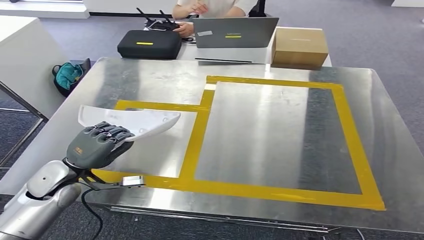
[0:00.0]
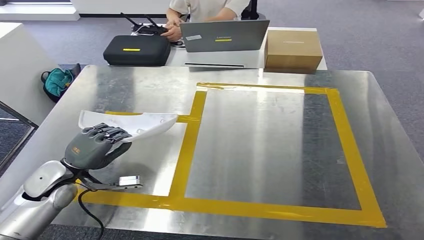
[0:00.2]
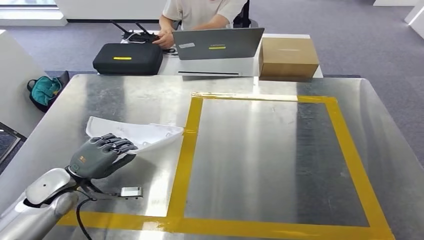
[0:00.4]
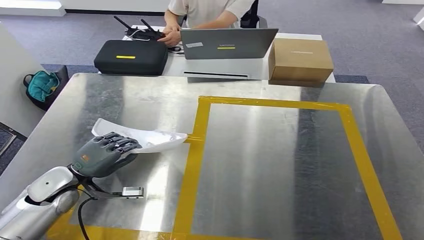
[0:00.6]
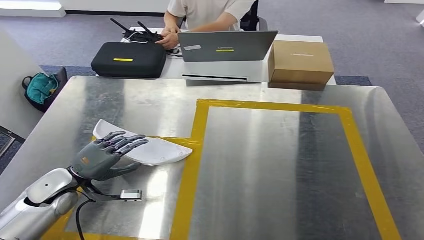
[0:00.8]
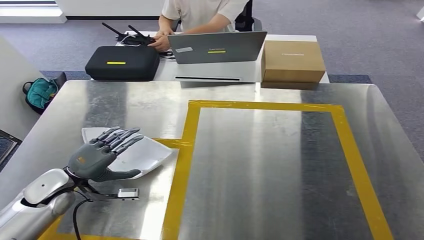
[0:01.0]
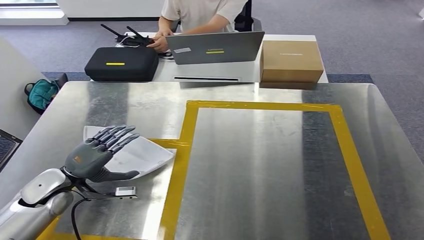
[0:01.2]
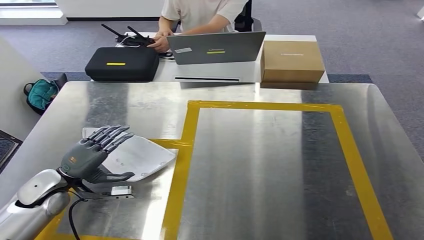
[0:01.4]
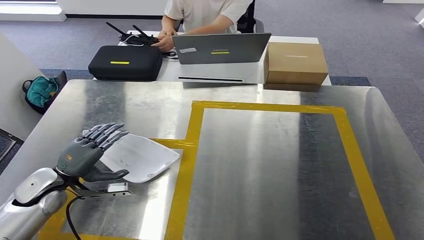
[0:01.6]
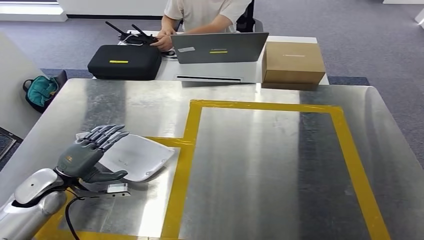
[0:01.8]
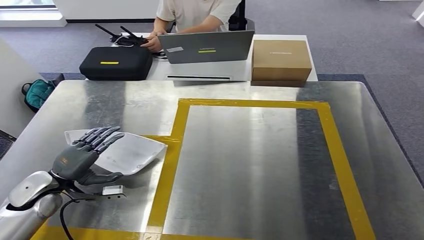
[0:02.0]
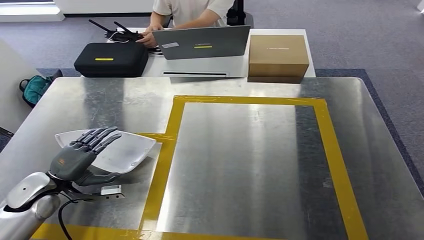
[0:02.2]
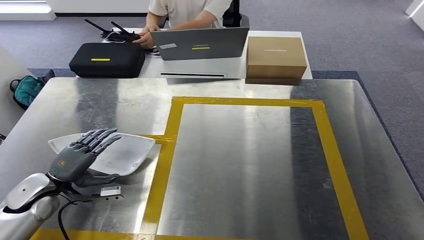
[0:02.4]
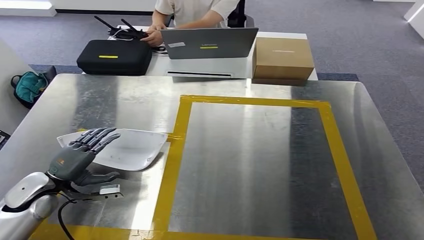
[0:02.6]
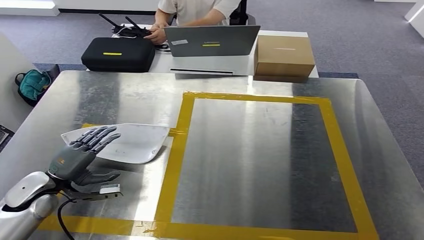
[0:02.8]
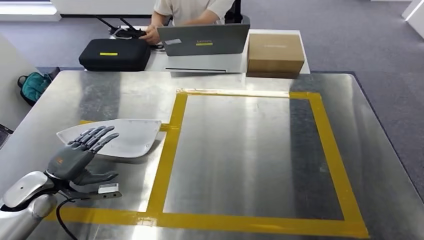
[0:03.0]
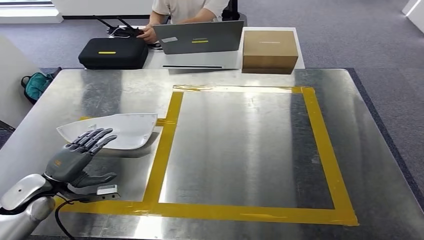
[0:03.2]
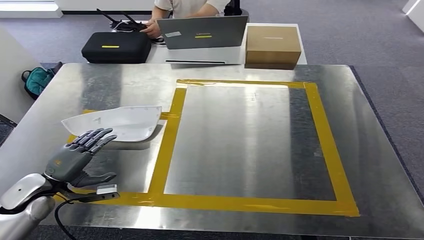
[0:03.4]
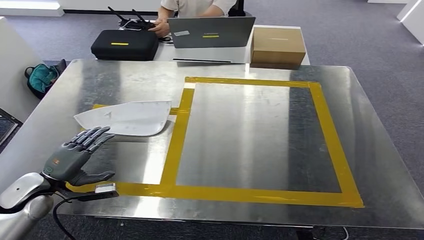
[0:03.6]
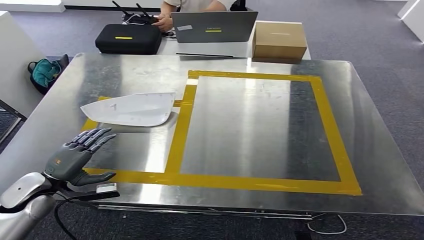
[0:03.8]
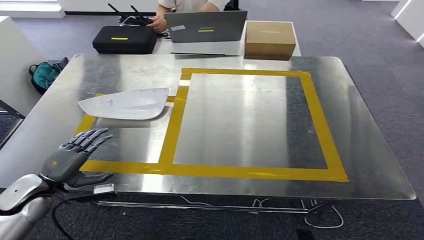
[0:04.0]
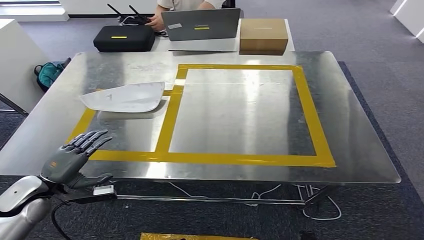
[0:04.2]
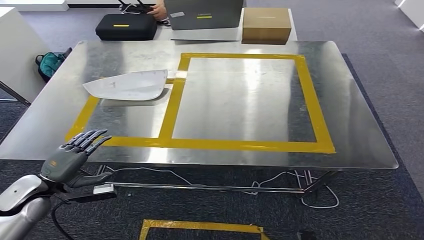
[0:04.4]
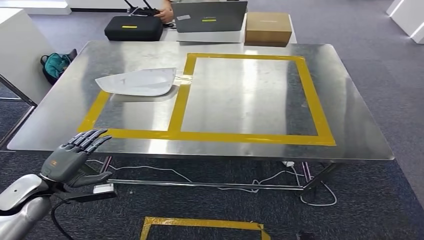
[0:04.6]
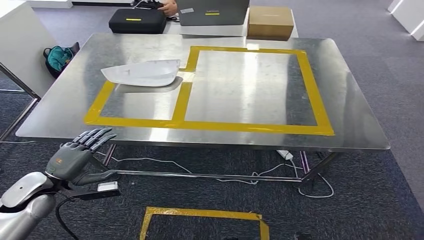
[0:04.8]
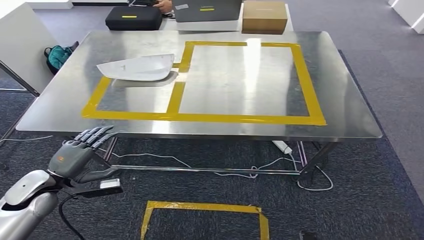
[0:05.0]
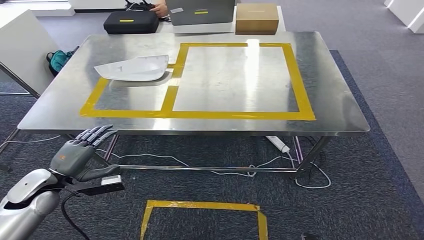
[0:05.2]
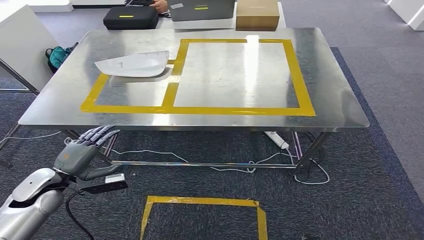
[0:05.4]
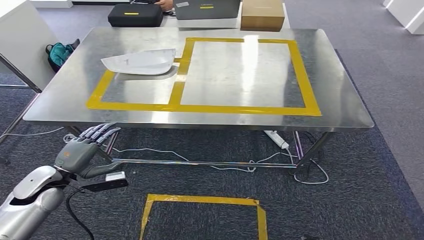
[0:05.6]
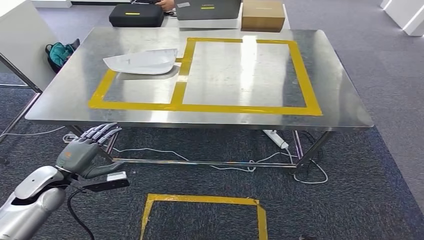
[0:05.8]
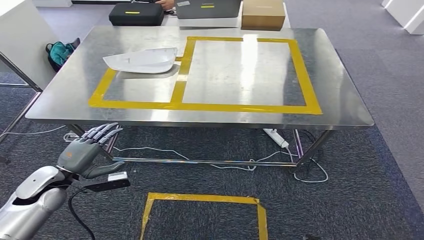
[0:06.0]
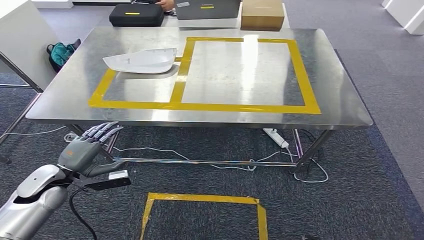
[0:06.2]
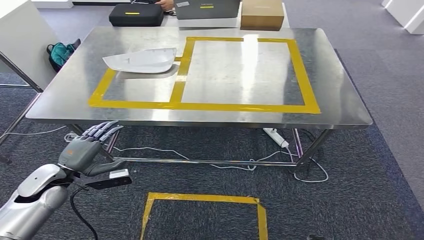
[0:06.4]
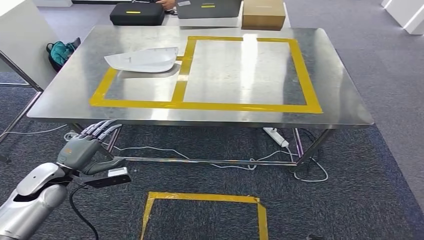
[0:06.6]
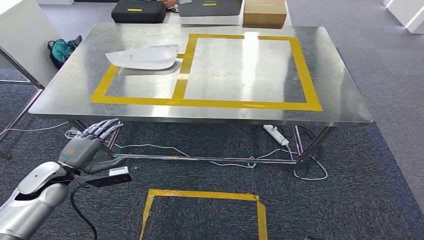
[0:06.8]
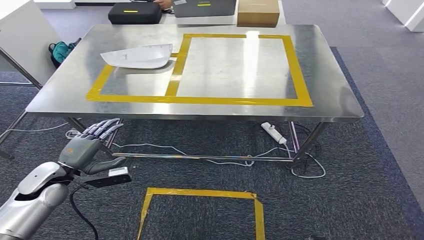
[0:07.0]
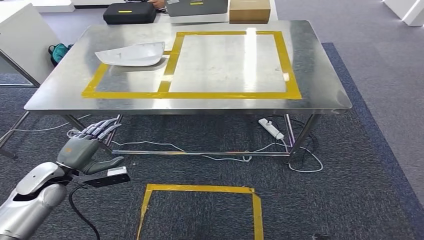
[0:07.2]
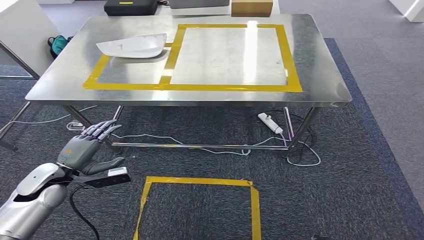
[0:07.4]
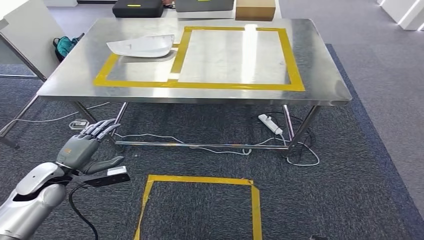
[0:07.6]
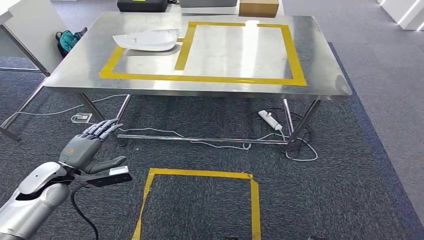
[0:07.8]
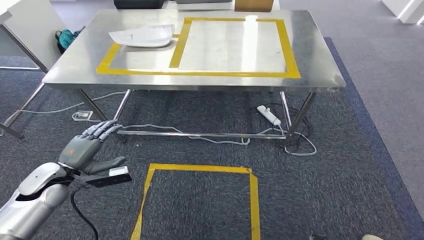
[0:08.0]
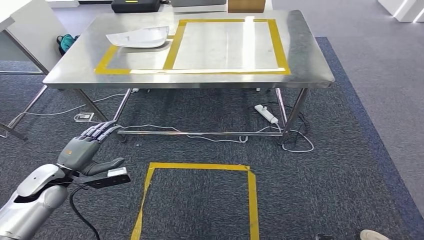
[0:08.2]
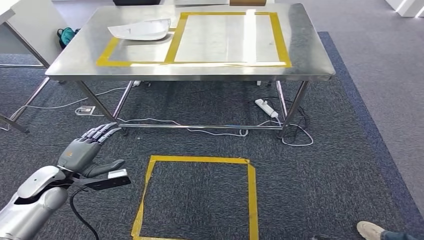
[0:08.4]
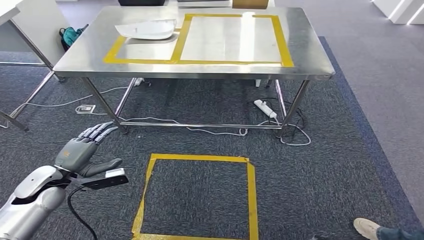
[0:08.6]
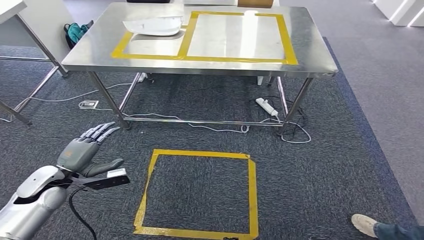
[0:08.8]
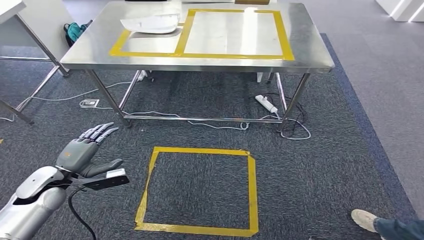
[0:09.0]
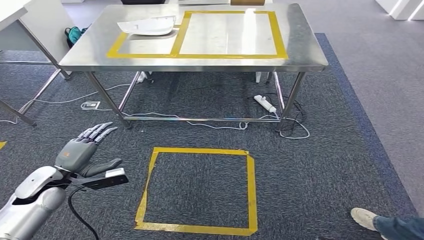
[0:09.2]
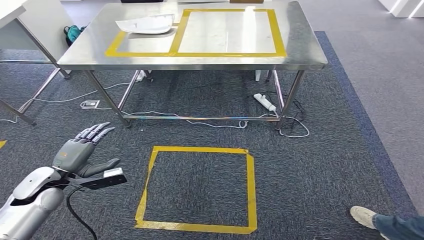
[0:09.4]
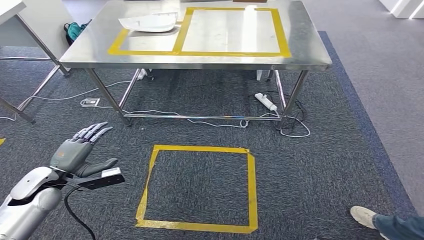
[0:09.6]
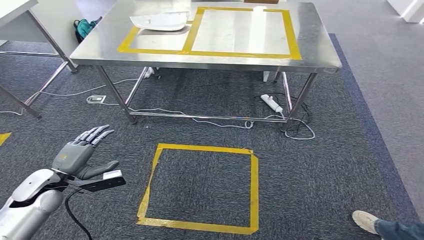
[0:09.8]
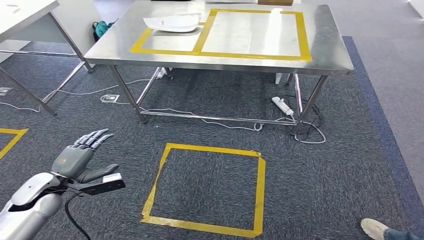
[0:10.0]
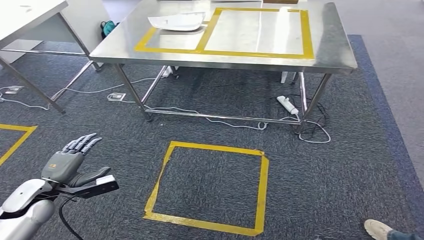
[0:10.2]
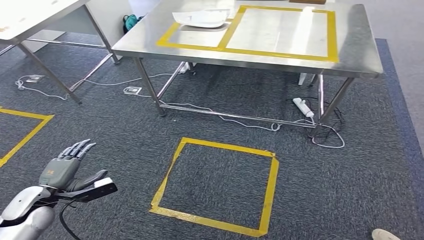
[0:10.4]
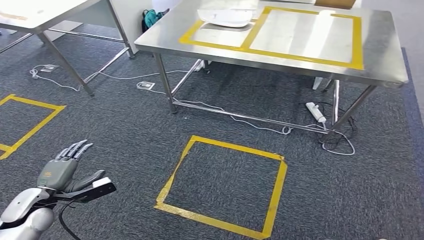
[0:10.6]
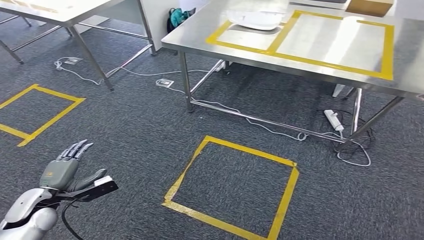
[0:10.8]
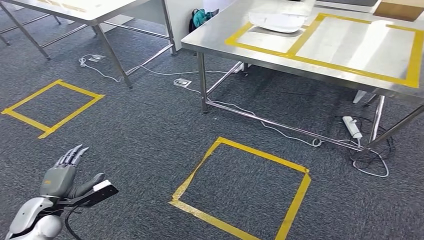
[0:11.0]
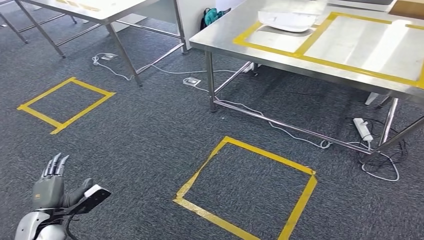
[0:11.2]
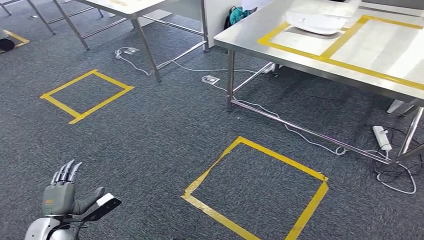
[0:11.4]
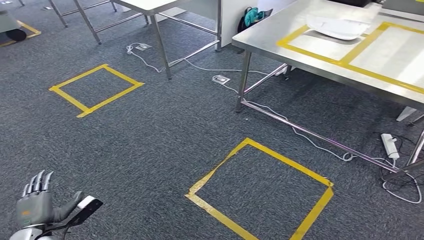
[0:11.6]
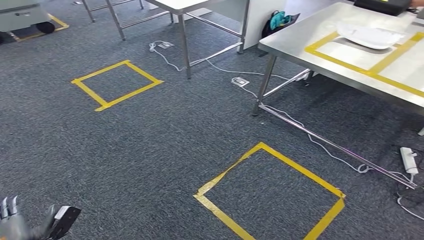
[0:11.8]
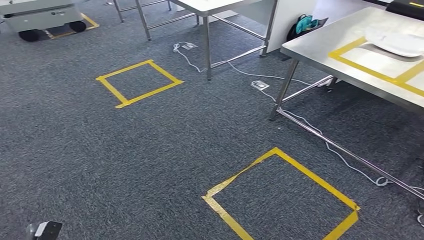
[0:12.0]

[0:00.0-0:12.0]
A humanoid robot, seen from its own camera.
Step, 0:00.0 to 0:06.0: Insert the small component into the corresponding slot on the workbench.

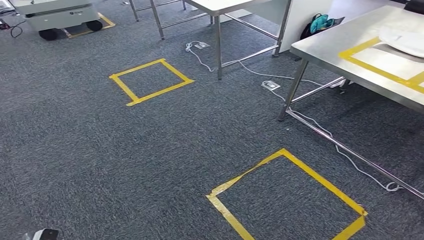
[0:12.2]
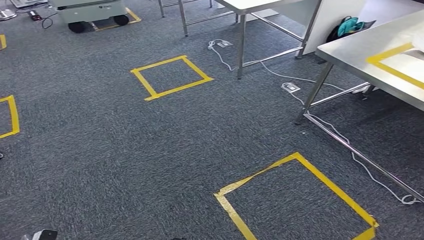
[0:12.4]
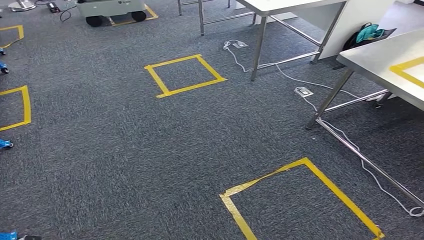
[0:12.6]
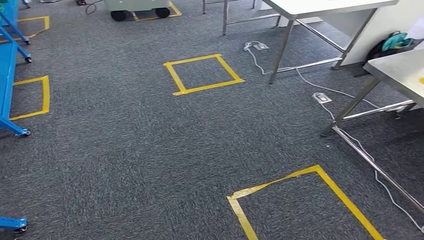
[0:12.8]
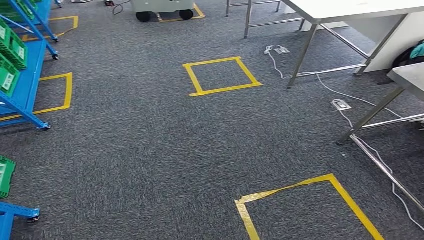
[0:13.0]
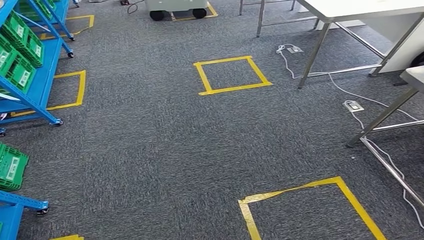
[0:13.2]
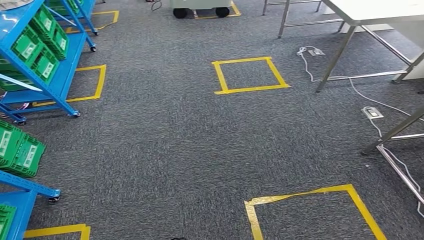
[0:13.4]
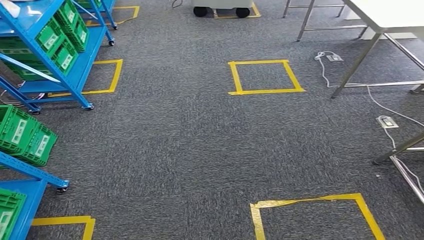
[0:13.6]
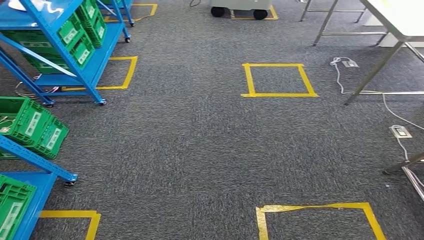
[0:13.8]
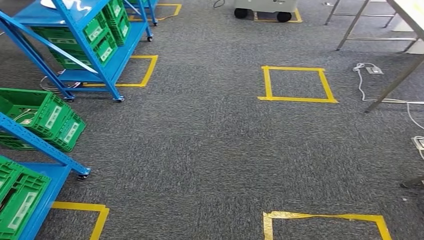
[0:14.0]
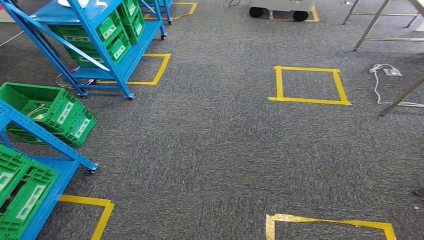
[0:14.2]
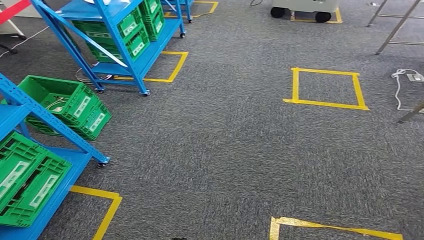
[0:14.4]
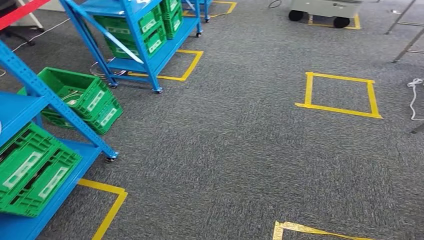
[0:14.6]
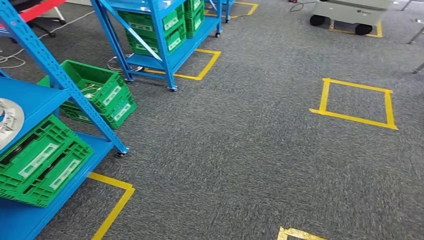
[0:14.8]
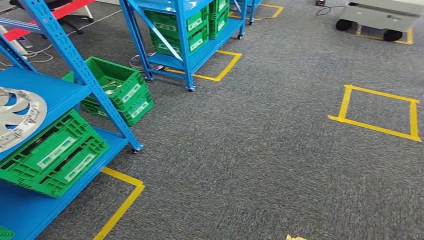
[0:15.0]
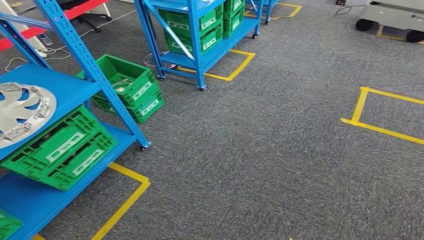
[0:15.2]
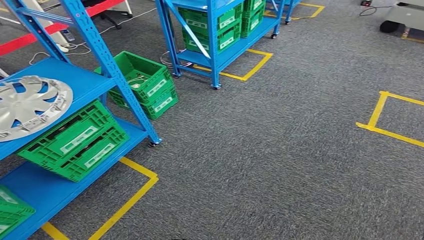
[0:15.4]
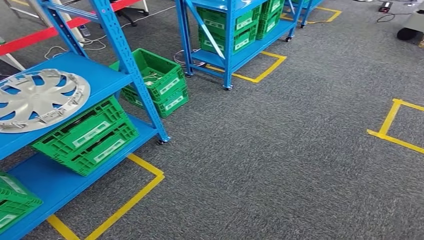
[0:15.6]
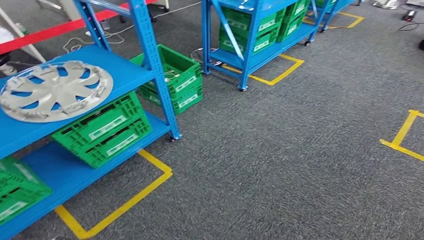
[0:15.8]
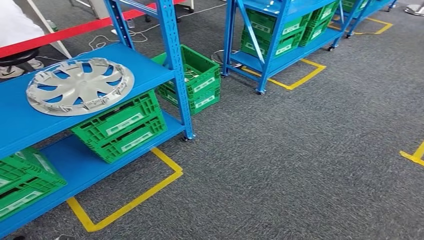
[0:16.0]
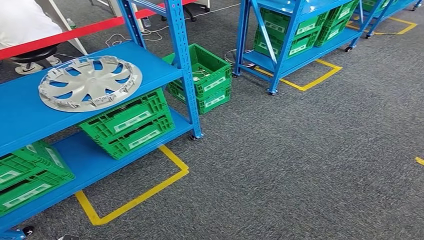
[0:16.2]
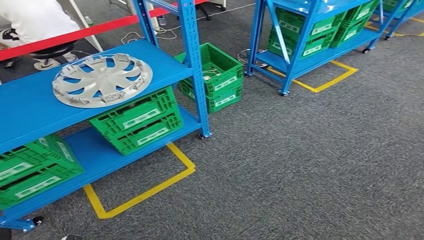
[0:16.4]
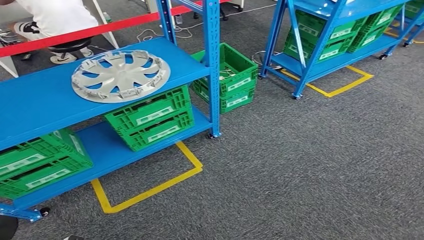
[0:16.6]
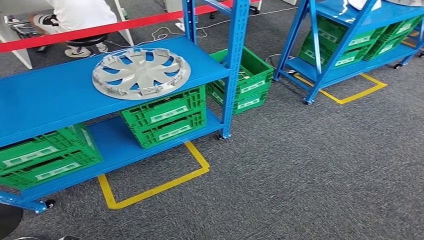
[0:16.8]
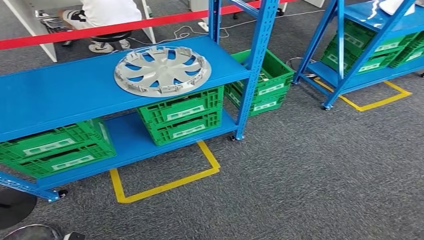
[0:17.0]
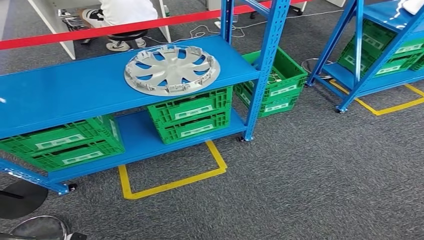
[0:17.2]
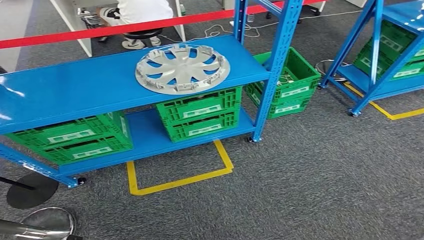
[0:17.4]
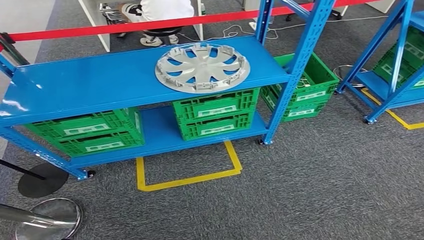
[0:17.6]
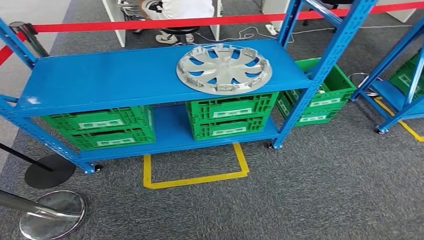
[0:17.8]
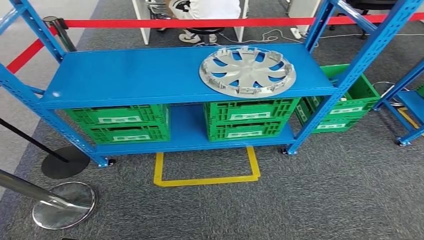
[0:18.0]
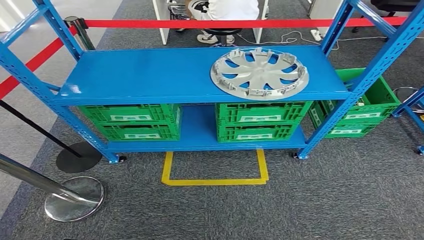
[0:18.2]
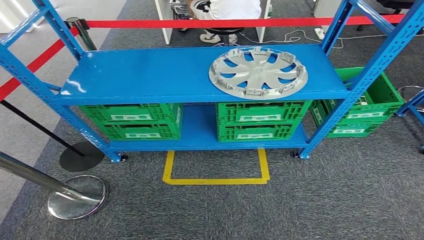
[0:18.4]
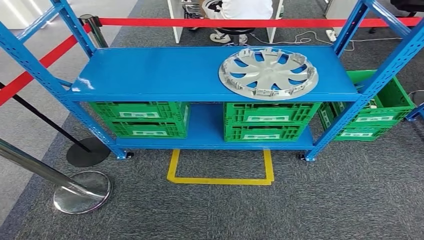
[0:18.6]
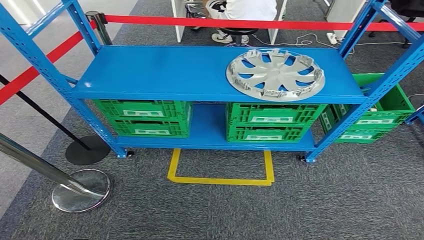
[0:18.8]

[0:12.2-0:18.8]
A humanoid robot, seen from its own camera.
Step, 0:12.2 to 0:18.8: Return to the initial position at the workbench.
